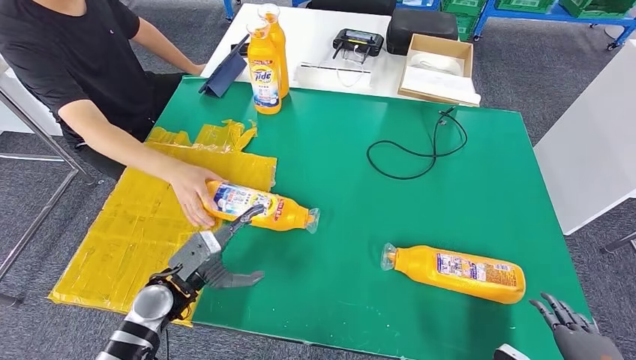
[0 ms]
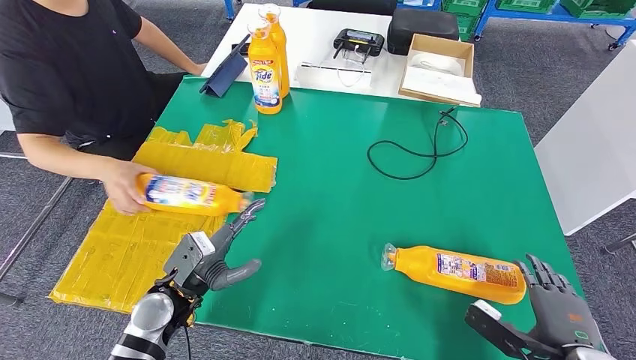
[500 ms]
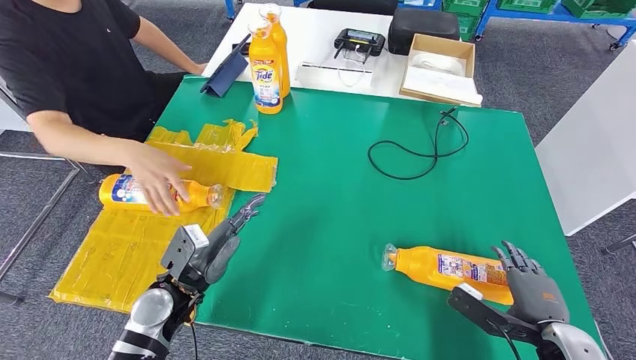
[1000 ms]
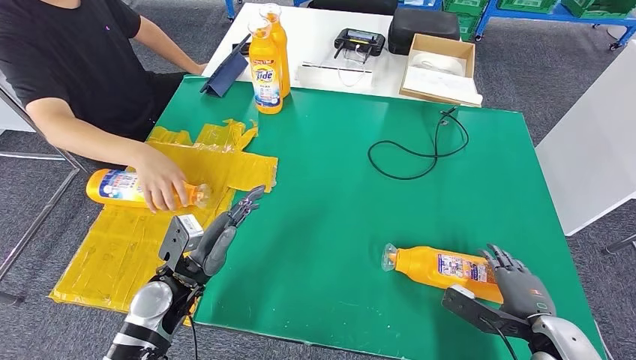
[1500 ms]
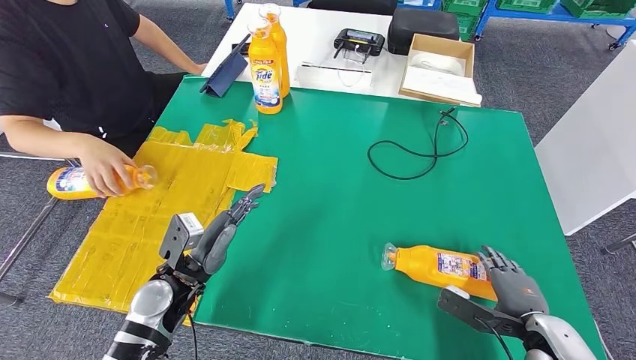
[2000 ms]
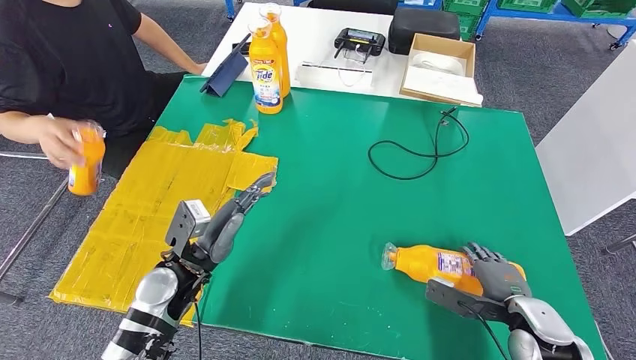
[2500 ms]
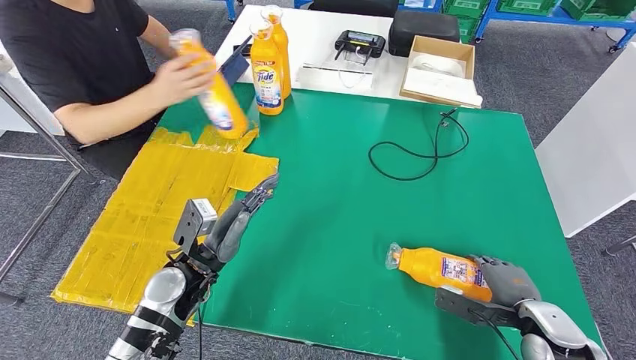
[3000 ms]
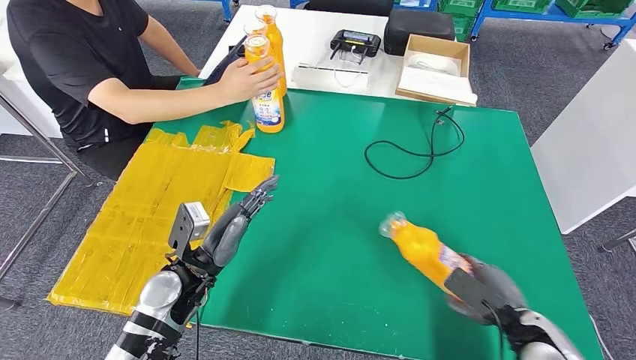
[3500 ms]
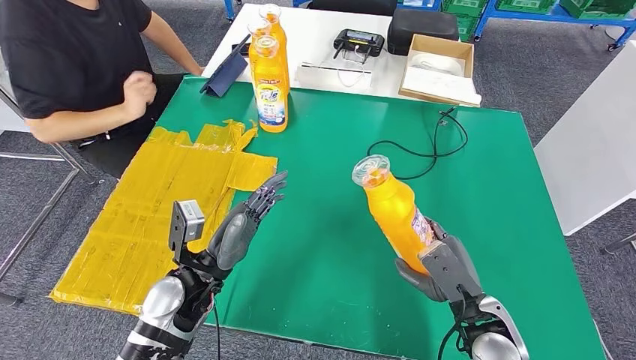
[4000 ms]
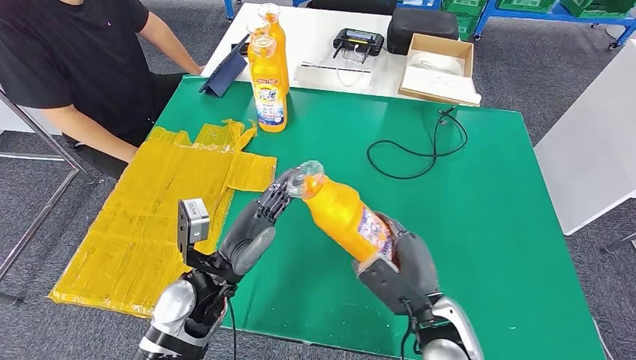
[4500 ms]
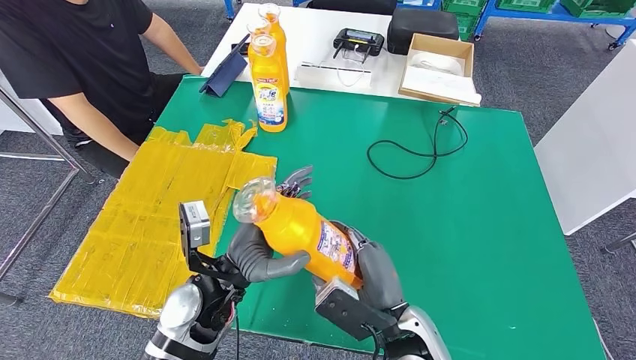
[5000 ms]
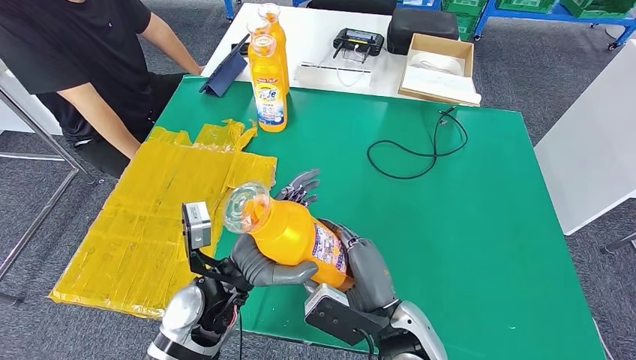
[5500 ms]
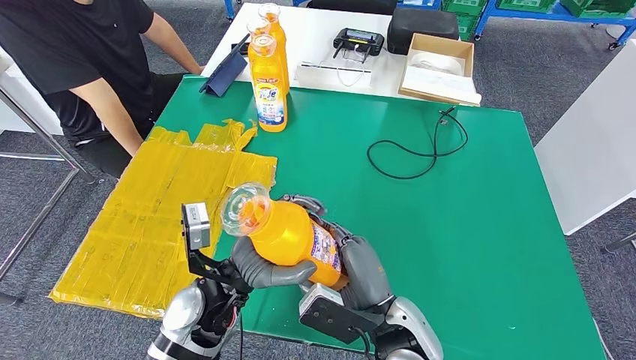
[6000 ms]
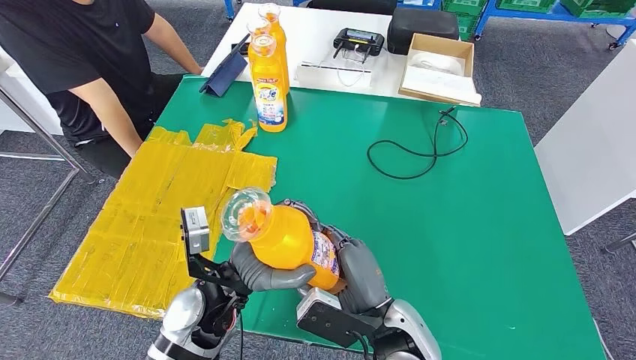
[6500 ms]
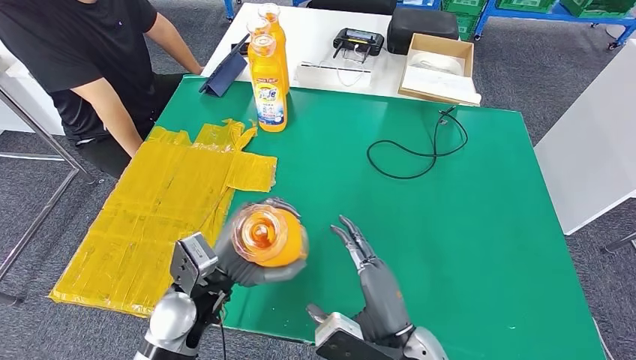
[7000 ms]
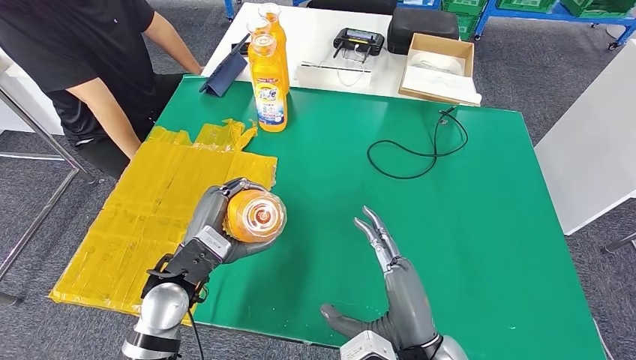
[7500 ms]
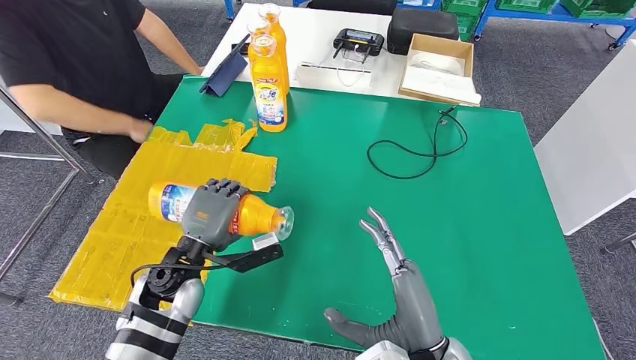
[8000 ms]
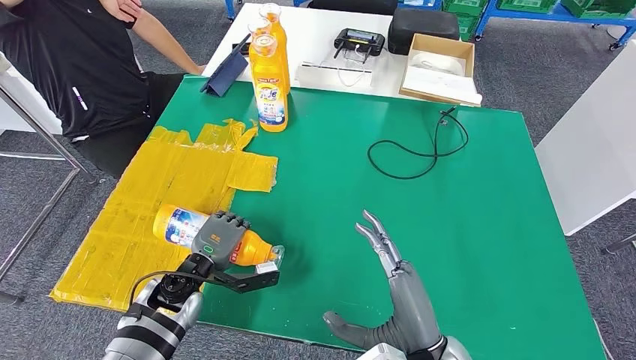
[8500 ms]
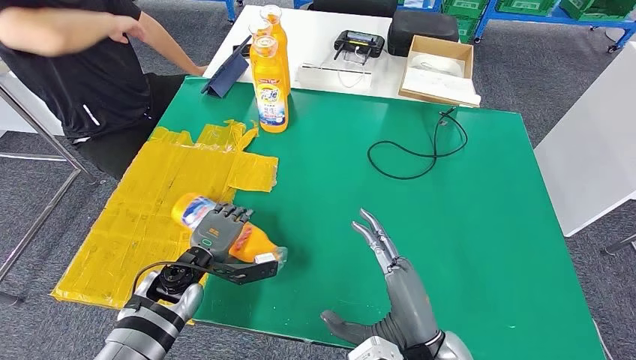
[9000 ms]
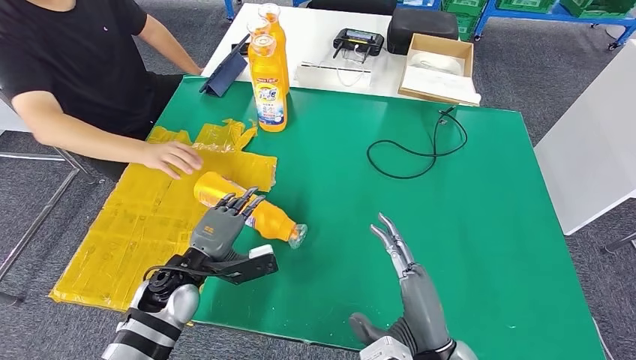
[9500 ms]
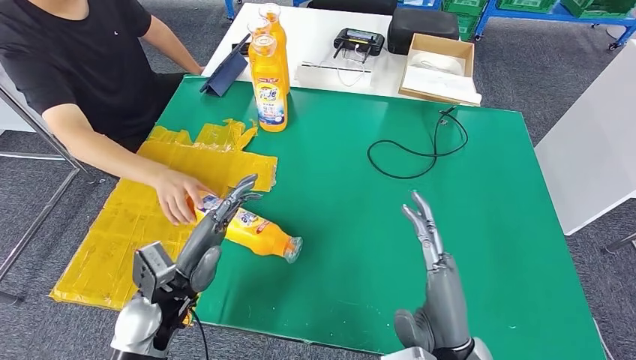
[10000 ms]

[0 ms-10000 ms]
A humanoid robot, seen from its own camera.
Step, 0 ms to 4000 ms: Pick up the fast-moving consumer goods bottle from the table.
Step, 4500 ms to 10000 ms: Flip the fast-moving consumer goods bottle to the front side.
0 ms to 2000 ms: The right hand travels forward by roughly 10 cm.
6000 ms to 8000 ms: The right hand shifts approximately 5 cm backward, while the left hand travels to the left by some 10 cm.
8000 ms to 10000 ms: The left hand moves backward, approximately 5 cm, and goes downward and returns, roughly 5 cm each way.

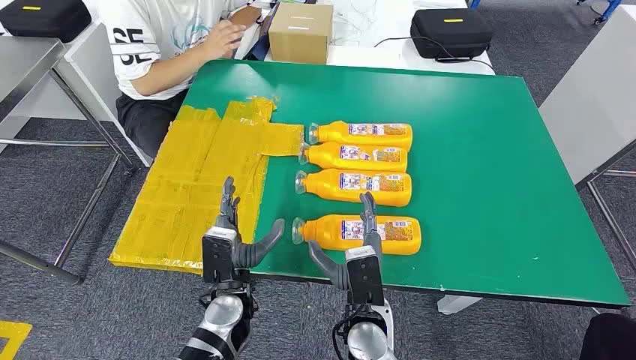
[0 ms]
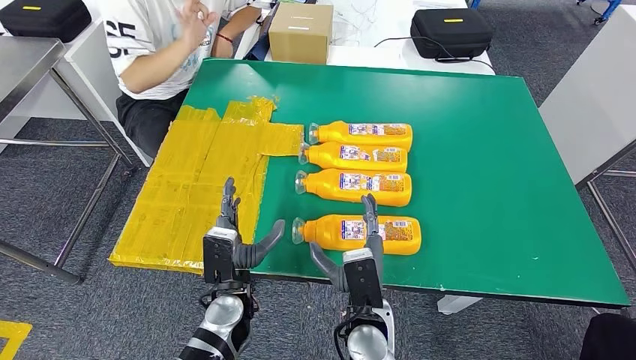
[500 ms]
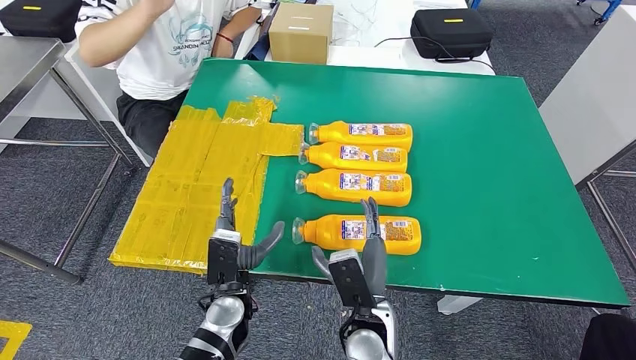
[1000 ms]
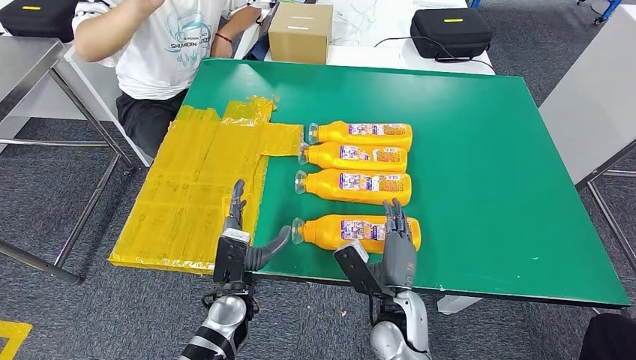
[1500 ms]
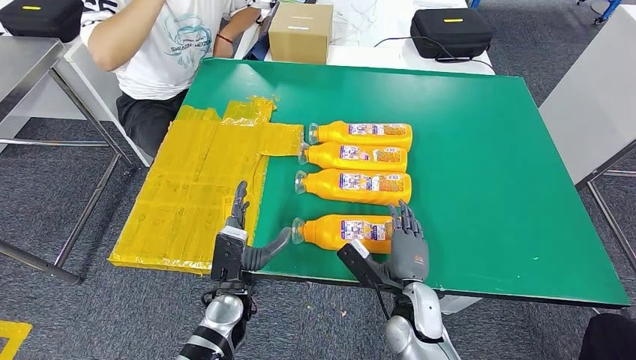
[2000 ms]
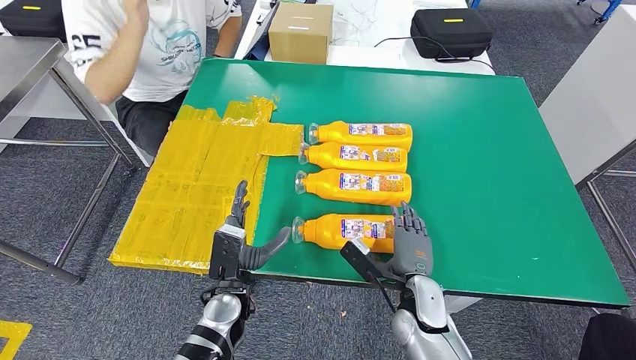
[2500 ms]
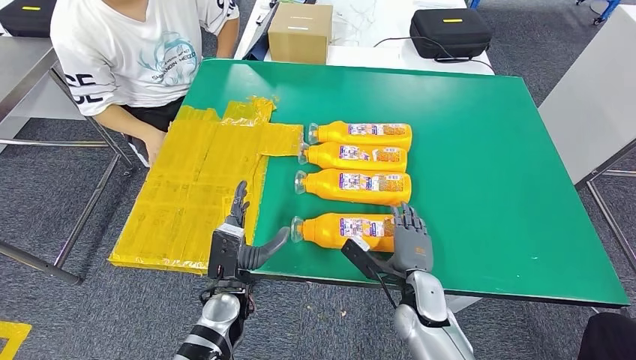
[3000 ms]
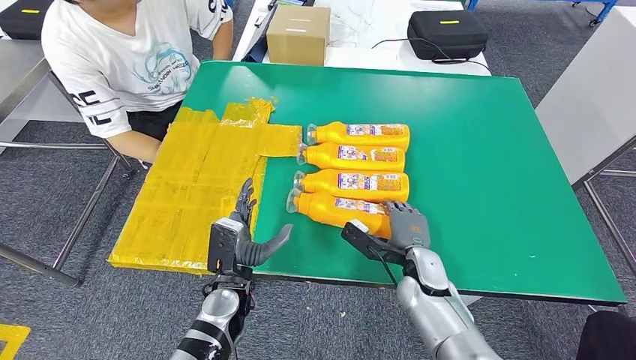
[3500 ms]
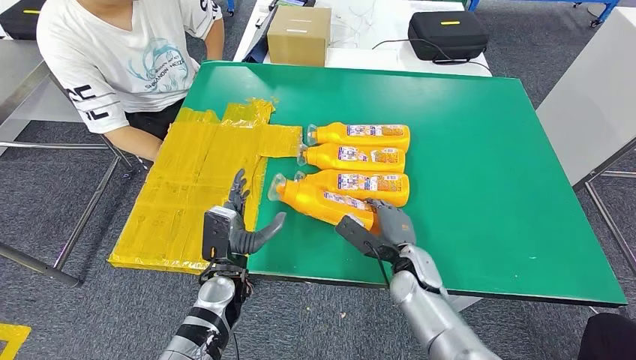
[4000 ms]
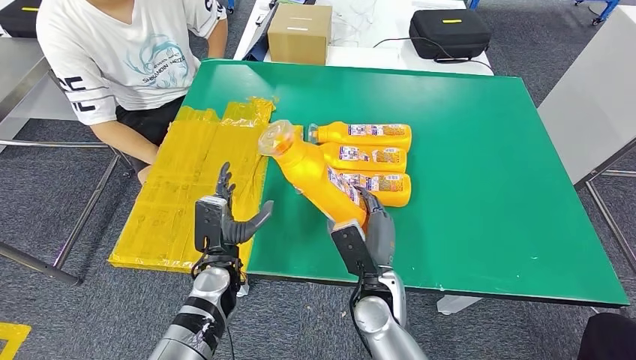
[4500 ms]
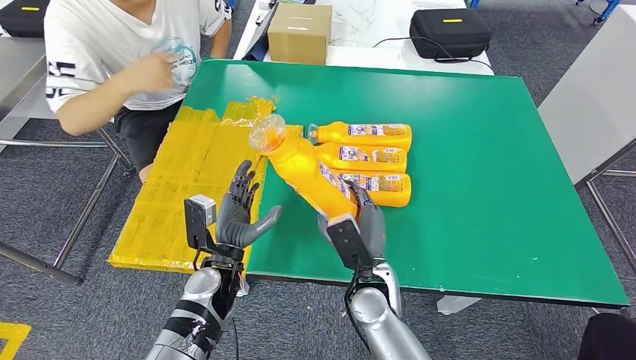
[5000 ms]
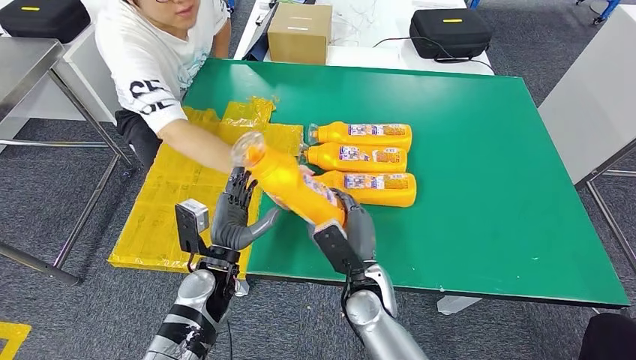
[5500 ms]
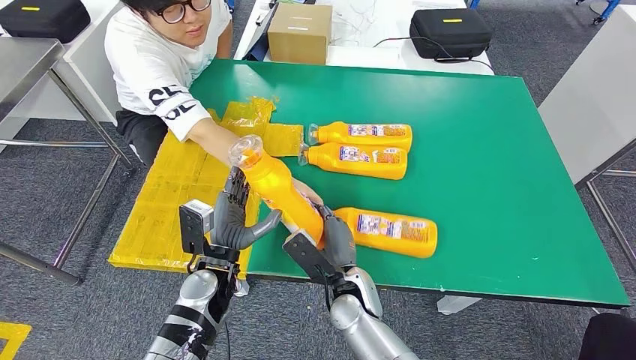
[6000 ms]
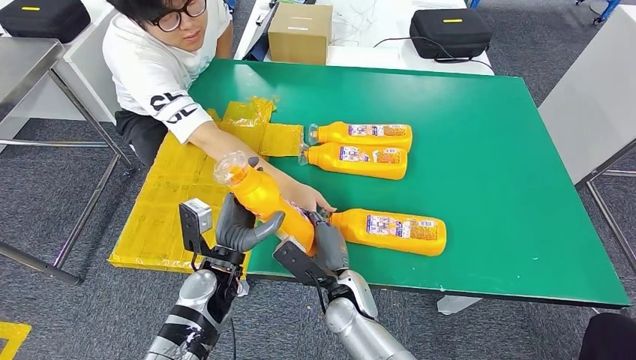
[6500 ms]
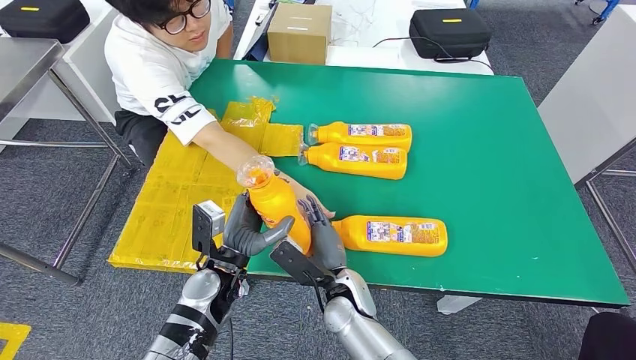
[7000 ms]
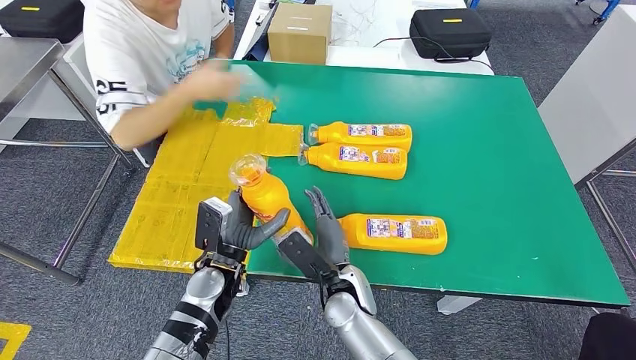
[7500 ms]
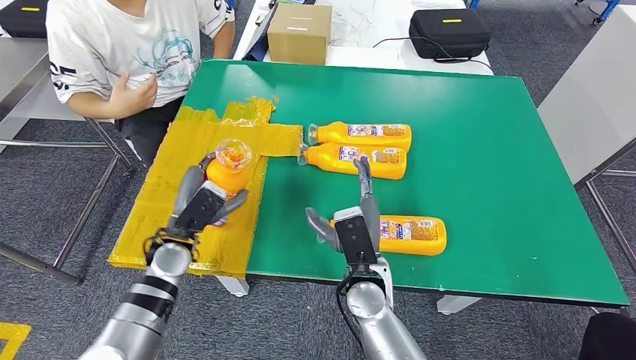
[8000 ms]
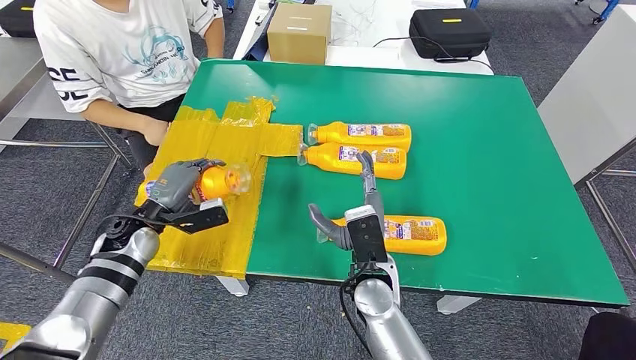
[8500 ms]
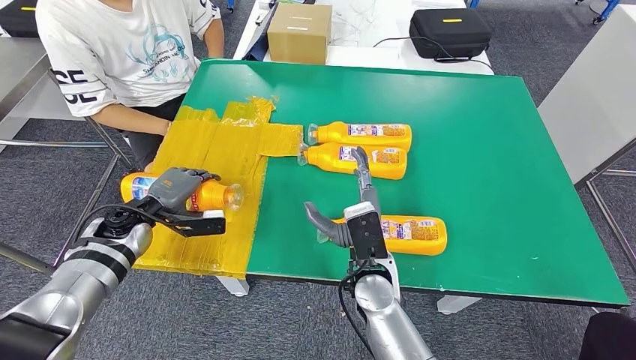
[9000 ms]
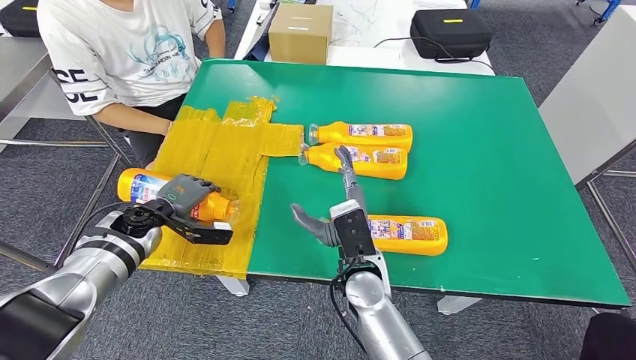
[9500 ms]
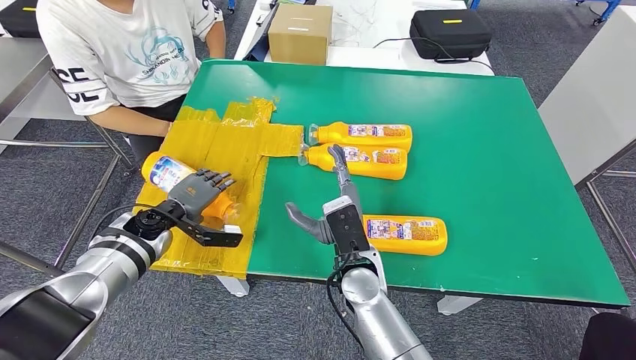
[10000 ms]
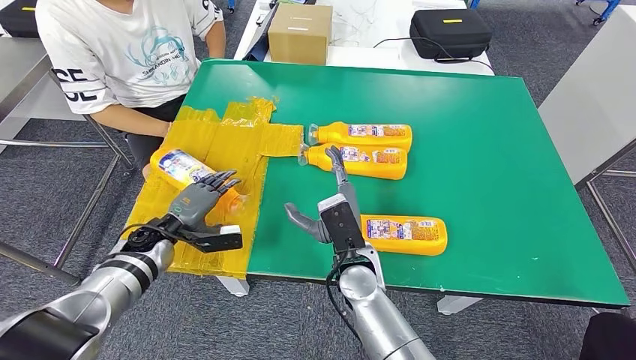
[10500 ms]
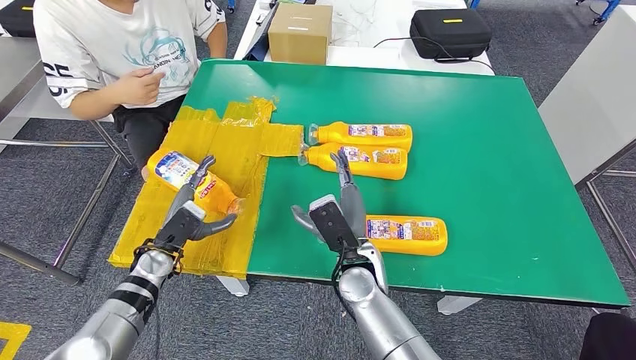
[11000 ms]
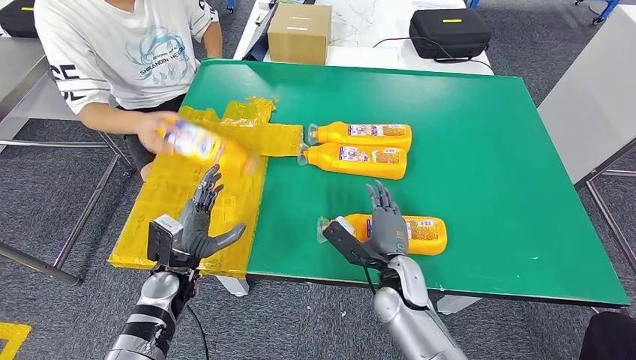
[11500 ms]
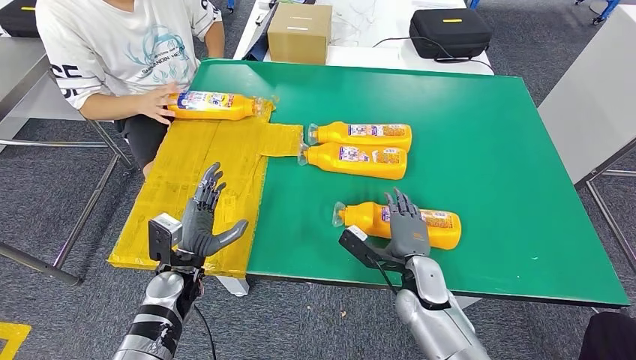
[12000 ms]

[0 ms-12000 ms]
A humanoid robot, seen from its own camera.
Step, 0 ms to 4500 ms: Take the fast-moving consumer goods bottle from the table.
Step, 6500 ms to 10000 ms: Flip the fast-moving consumer goods bottle to the front side.
